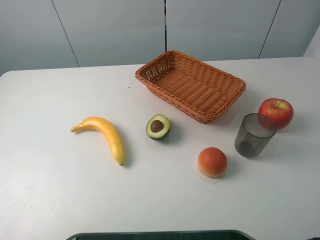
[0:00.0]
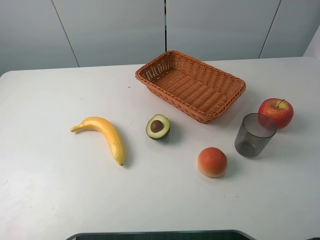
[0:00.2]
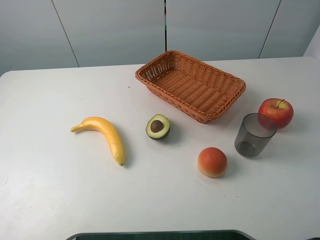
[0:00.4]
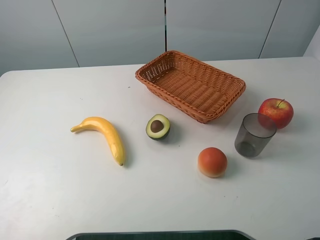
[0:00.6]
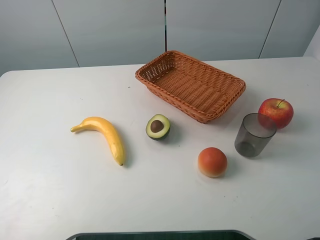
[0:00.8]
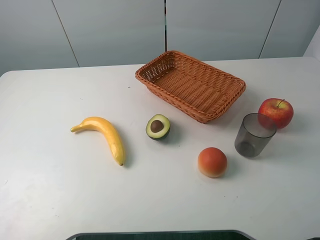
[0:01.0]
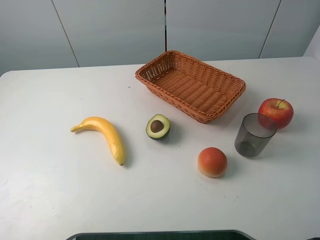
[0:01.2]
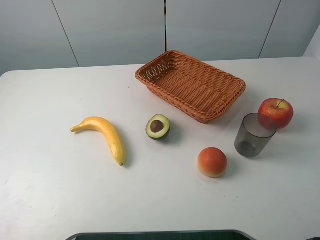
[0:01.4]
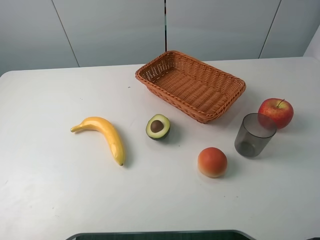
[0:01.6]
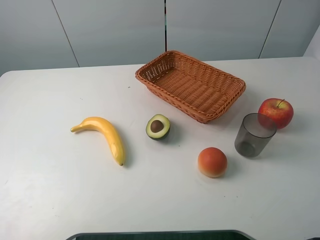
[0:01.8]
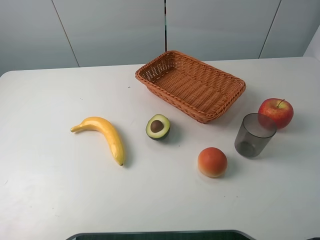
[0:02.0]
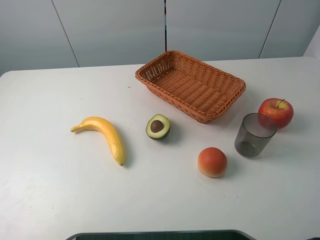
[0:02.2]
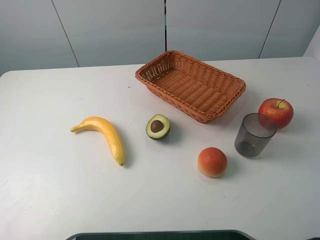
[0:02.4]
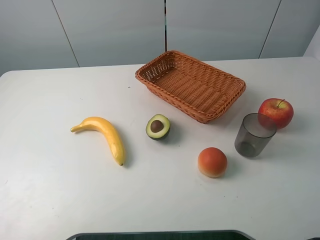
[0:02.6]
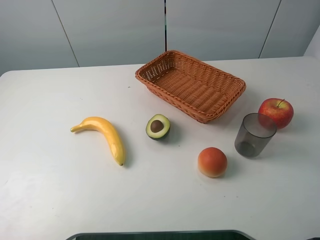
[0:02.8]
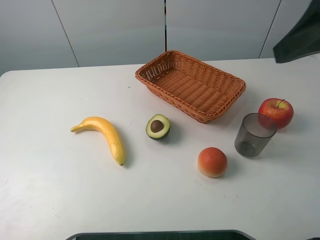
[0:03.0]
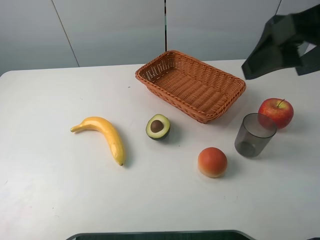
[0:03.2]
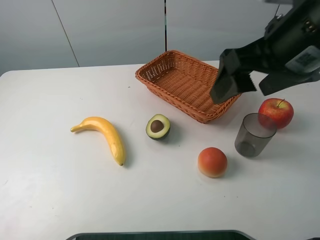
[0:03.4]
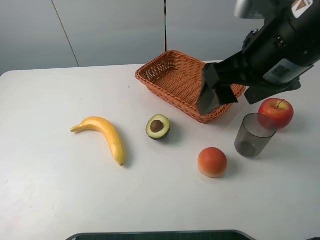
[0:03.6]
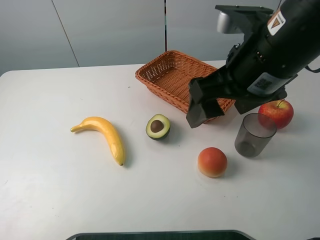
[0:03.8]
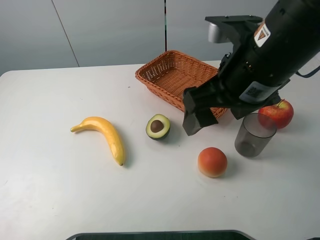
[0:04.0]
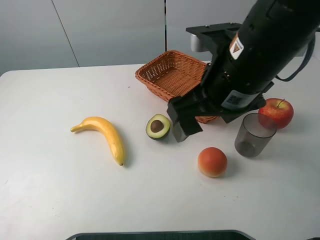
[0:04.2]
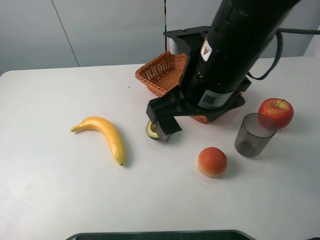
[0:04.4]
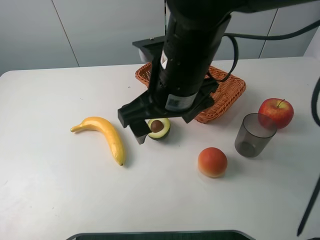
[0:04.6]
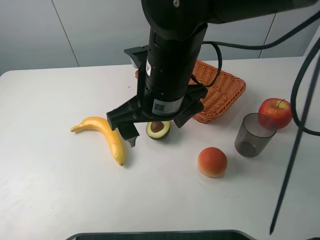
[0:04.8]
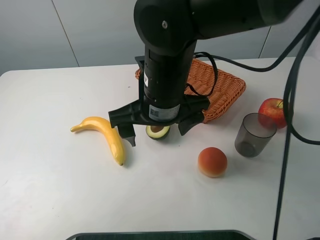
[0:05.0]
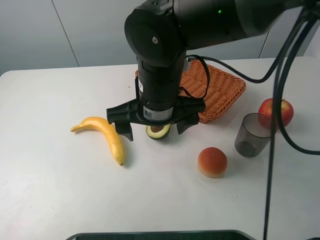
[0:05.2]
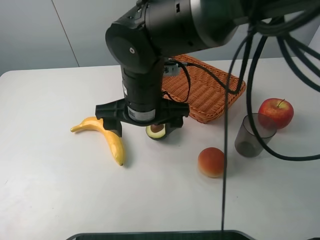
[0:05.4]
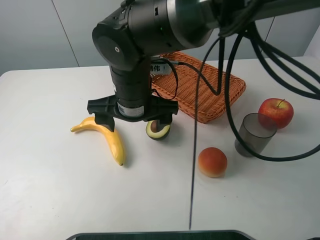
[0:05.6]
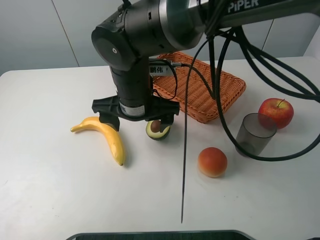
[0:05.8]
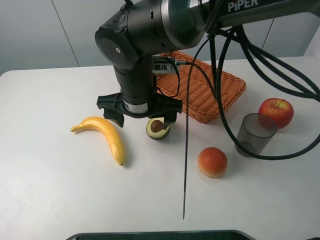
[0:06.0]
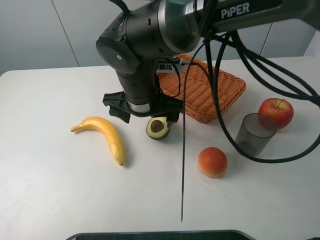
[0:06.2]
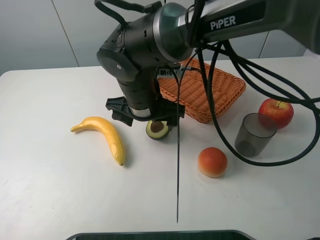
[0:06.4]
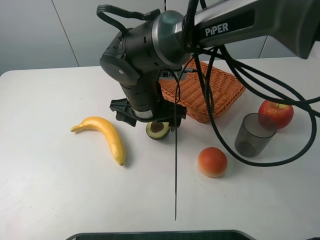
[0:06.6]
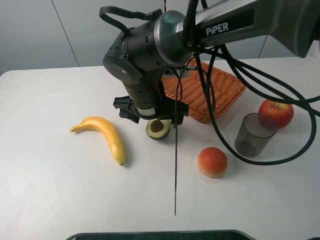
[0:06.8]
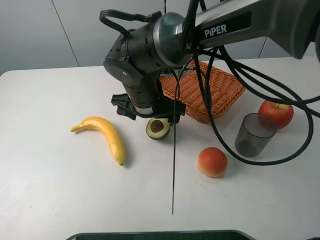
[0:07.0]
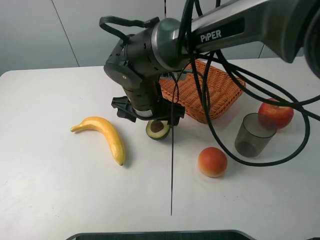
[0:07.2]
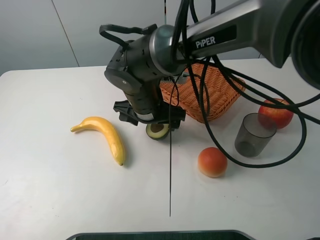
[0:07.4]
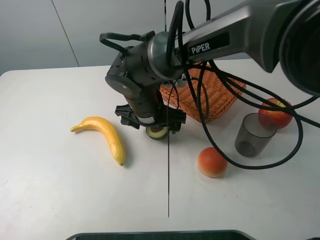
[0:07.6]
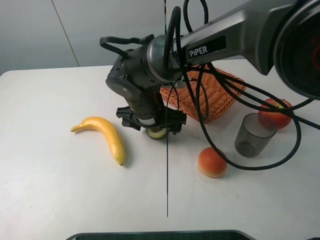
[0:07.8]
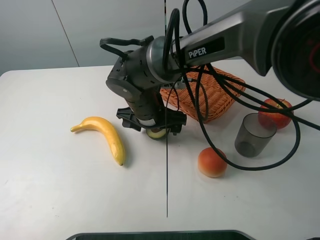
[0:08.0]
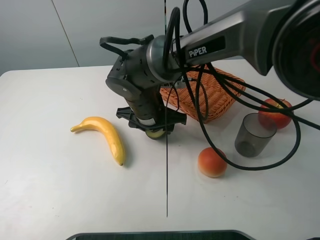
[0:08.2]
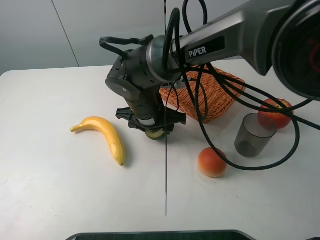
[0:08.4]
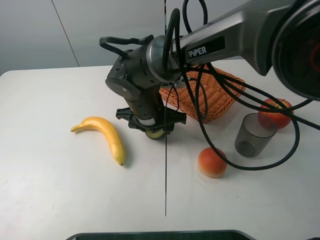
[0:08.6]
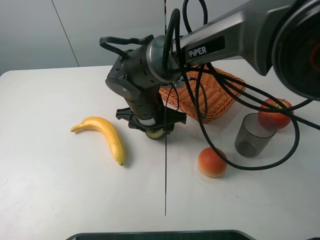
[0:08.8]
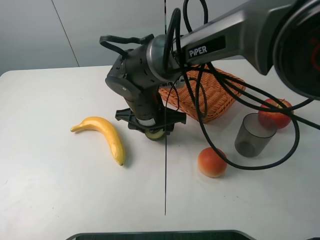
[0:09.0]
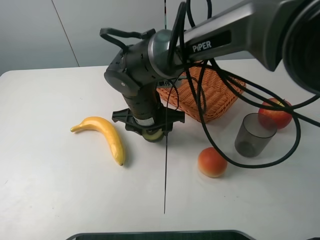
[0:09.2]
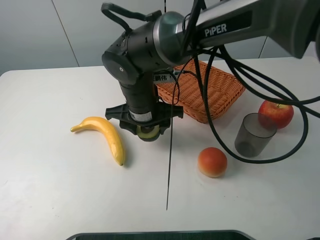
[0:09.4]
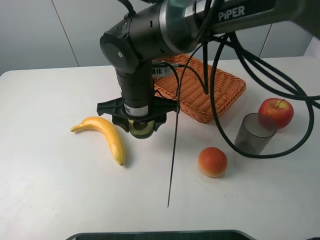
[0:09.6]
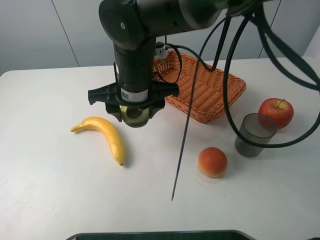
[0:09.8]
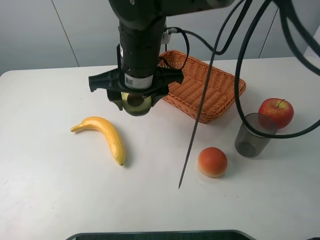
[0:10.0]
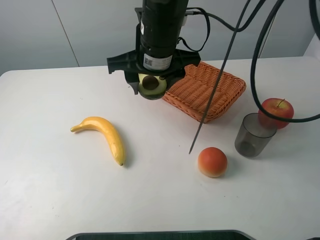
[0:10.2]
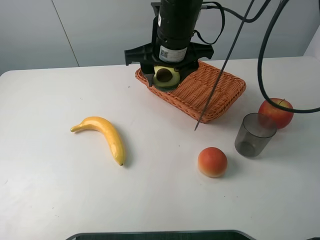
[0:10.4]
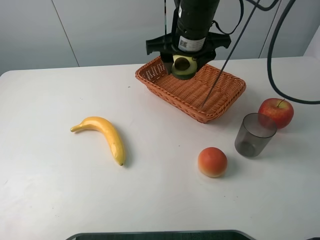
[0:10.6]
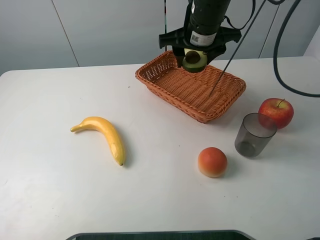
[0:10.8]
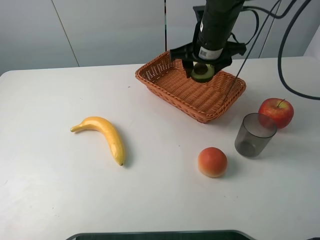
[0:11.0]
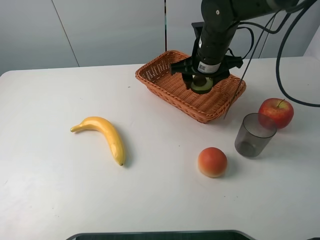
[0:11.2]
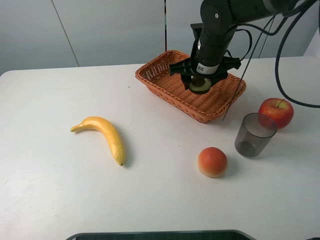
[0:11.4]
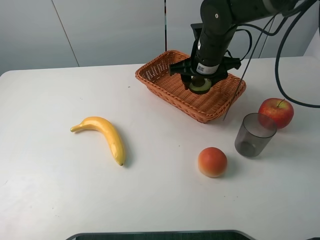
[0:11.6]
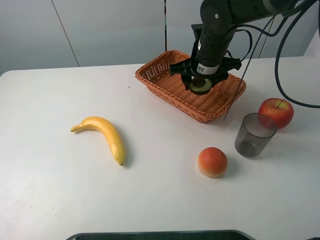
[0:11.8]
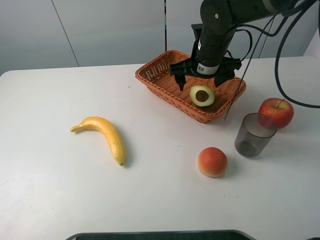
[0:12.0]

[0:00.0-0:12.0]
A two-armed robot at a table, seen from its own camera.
Task of the whole recording: randomly pick up an item from the table and put it in the basket.
Step, 0:00.0 to 0:08.8: Grasp the avocado with the right gripper.
0:01.6 to 0:03.0: The right gripper is displaced forward and upward by about 15 cm.
0:03.0 to 0:04.4: The right gripper heads to the left and downward, covering roughly 20 cm.
0:04.4 to 0:06.0: The right gripper is displaced to the left, downward and forward by about 15 cm.
0:06.0 to 0:07.6: The right gripper travels downward by some 5 cm.
0:07.6 to 0:09.0: The right gripper closes.
0:09.0 to 0:10.4: The right gripper goes about 15 cm upward.
0:10.4 to 0:12.0: The right gripper moves to the right, downward and forward, approximately 15 cm, and opens its fingers.

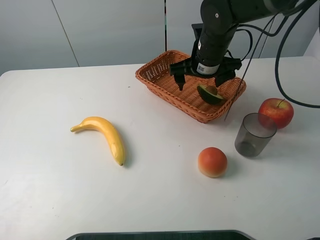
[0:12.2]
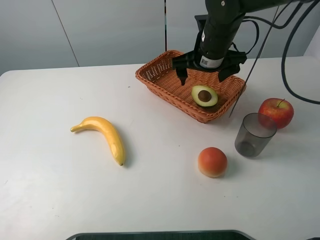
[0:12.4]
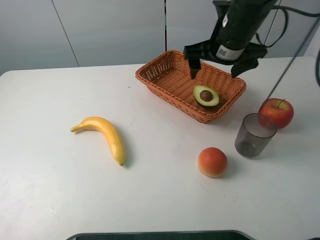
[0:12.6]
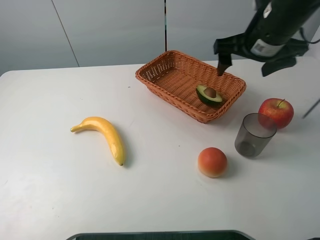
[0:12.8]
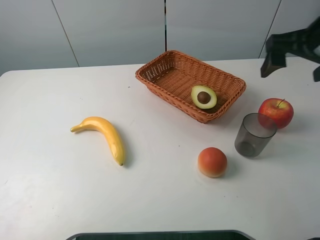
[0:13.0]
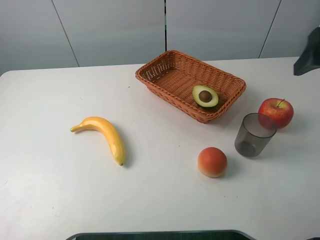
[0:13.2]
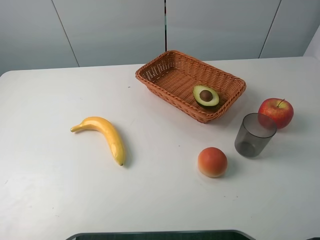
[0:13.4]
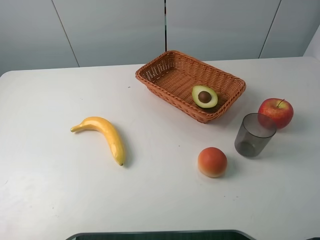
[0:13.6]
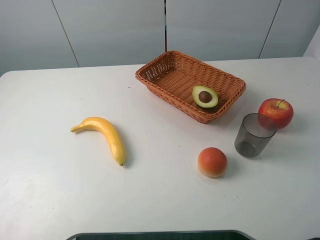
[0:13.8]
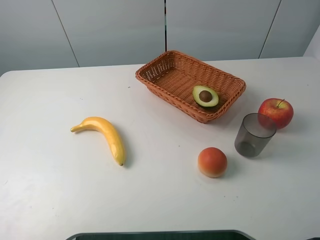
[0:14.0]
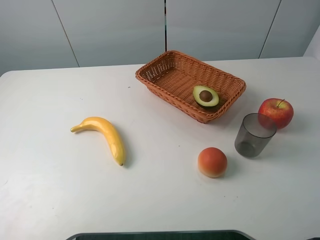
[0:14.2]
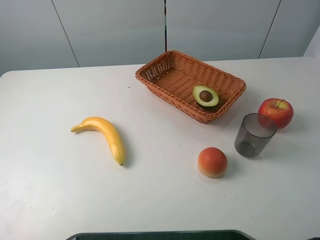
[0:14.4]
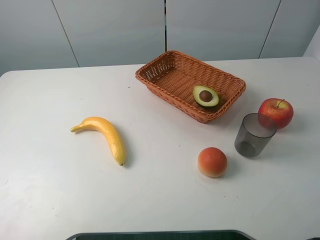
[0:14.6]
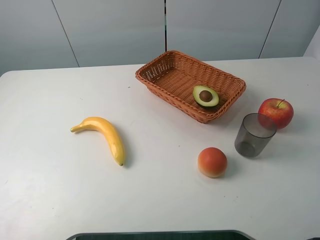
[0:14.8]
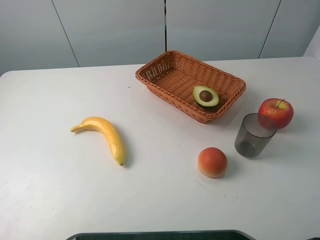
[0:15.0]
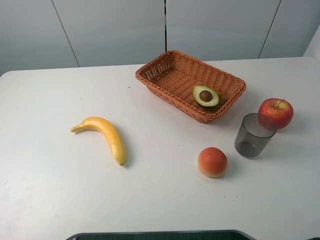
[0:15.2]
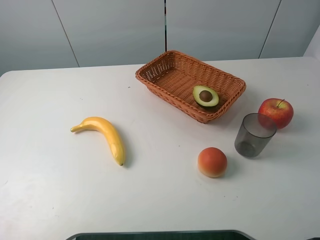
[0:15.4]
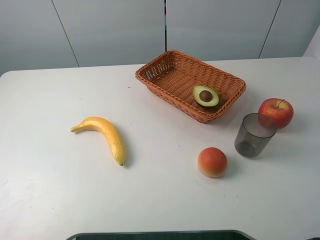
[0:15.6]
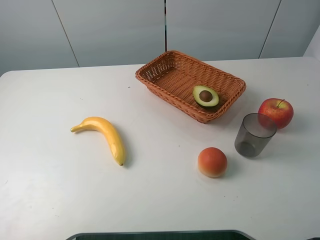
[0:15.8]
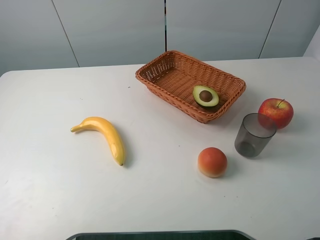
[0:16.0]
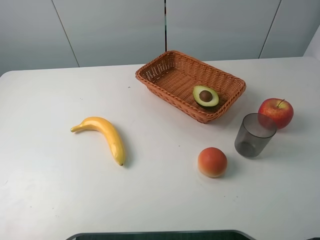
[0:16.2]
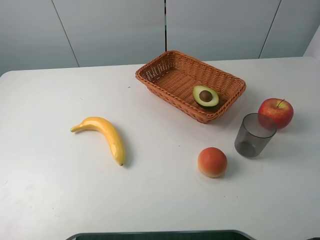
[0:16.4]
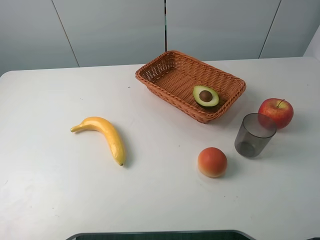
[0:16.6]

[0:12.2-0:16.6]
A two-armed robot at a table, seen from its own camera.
Task of the whole recording: randomly pick up an item from the table and put it in the basket.
0:12.2 to 0:13.6: The right gripper is displaced backward, to the right and upward by about 40 cm.
0:15.2 to 0:16.6: Both grippers stay put.

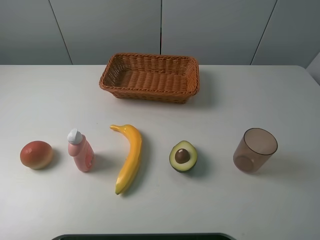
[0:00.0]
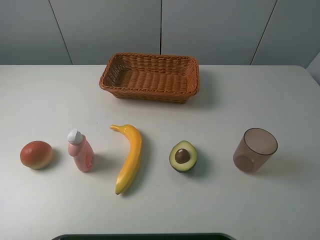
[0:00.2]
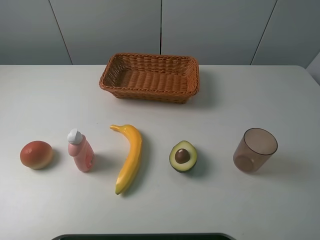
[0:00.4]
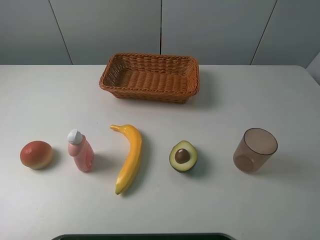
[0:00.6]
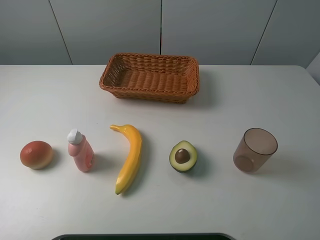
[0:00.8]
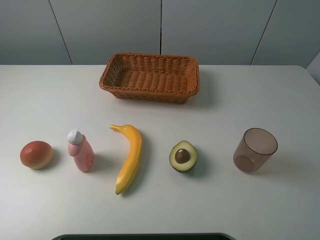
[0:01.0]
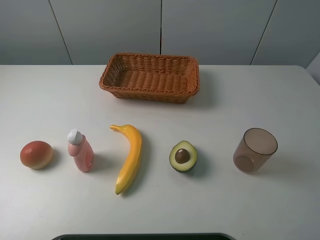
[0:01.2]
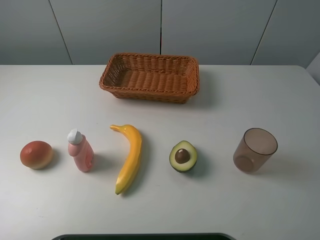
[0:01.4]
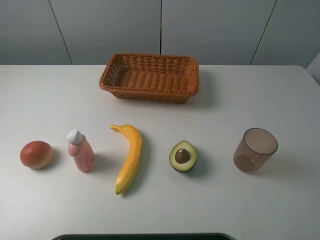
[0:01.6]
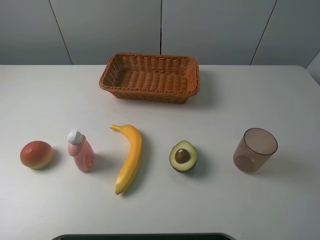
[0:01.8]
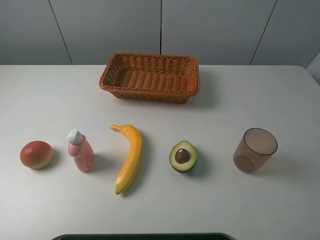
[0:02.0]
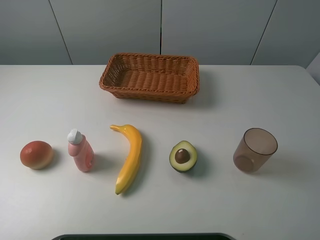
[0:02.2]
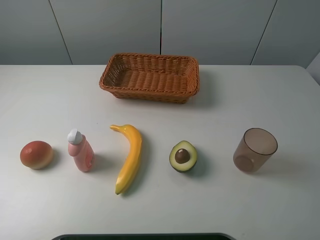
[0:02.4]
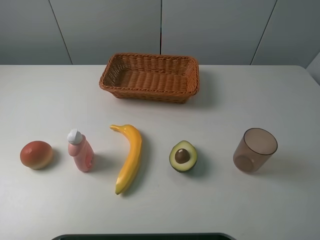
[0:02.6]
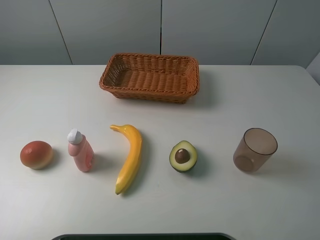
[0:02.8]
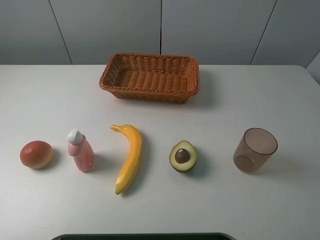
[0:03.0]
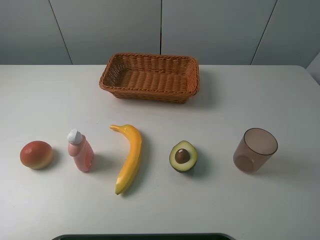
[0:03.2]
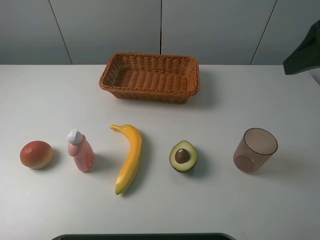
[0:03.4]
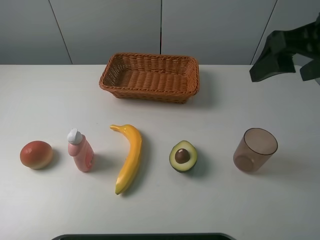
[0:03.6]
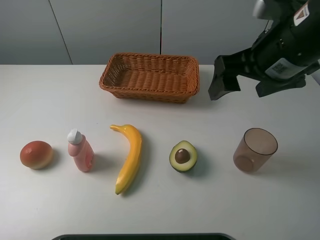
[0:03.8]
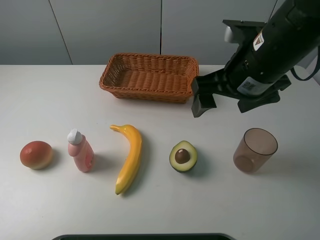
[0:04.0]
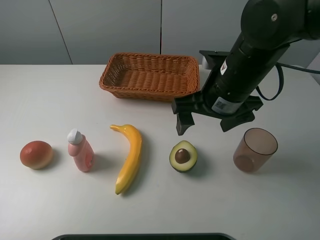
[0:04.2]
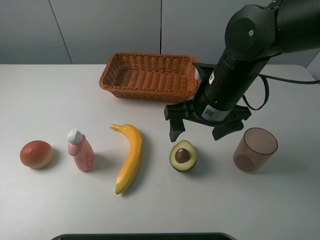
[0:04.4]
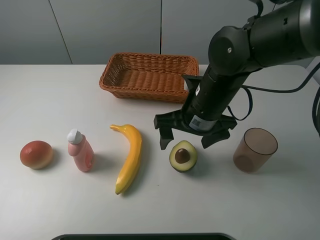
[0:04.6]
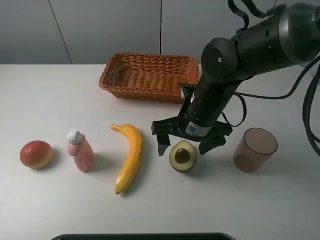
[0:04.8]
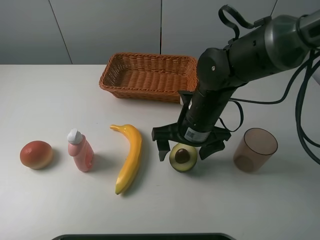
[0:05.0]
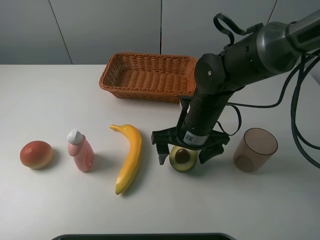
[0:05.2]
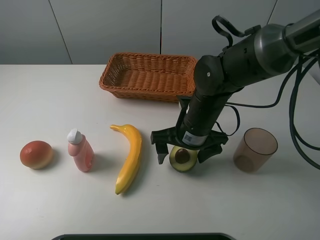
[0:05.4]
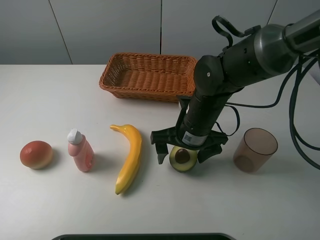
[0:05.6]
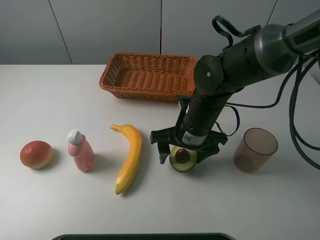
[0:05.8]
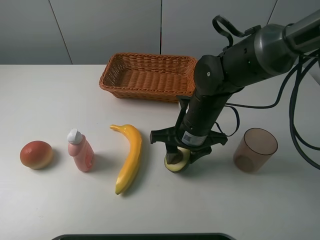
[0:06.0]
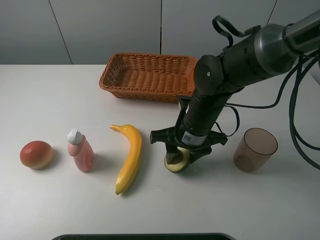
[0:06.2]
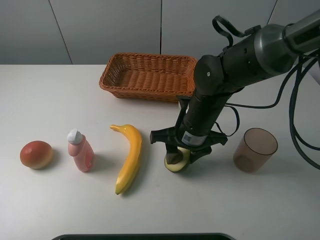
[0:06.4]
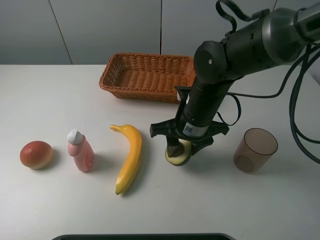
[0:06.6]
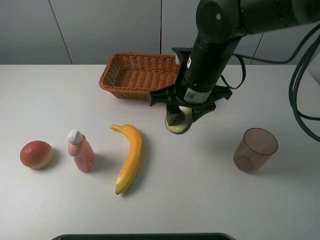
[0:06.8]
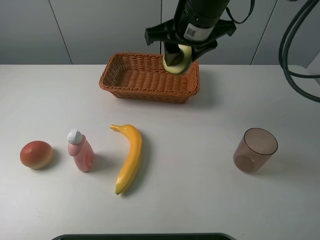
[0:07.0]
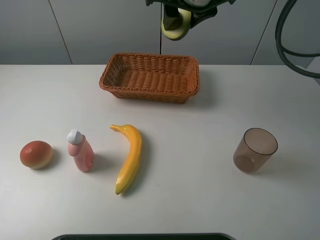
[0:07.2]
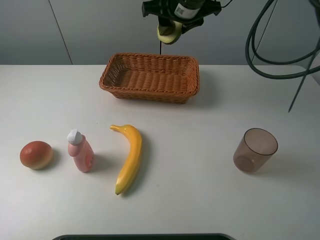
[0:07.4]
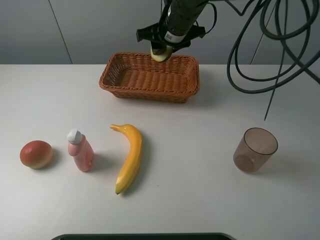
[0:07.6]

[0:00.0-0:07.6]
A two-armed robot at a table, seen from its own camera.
Task of the whole recording: randomly pick up an item from the table and put it in the basket.
Step, 0:00.0 to 0:06.0: Grasp the avocado with the right gripper.
0:00.0 to 0:01.6: The two grippers keep their place.
0:03.0 to 0:04.6: The right gripper moves downward, to the left and forward, roughly 30 cm.
0:04.6 to 0:06.0: The right gripper closes.
0:06.0 to 0:07.6: The right gripper goes about 20 cm forward and upward.
